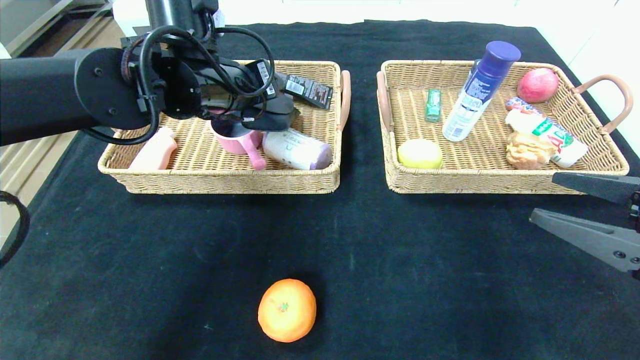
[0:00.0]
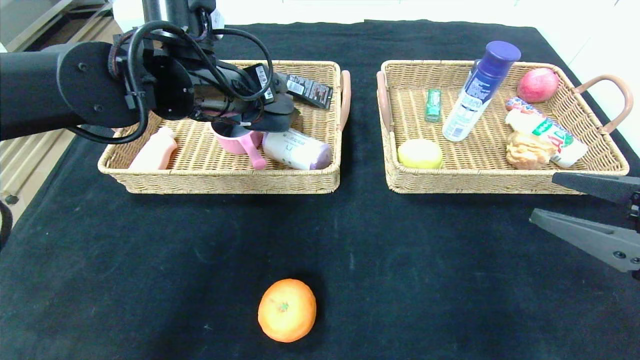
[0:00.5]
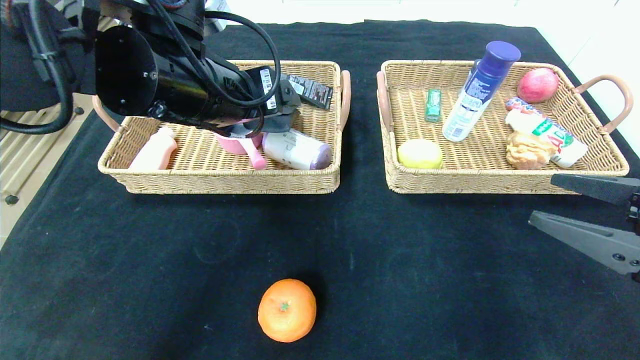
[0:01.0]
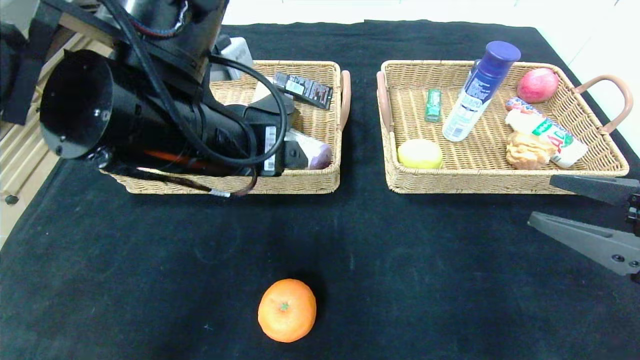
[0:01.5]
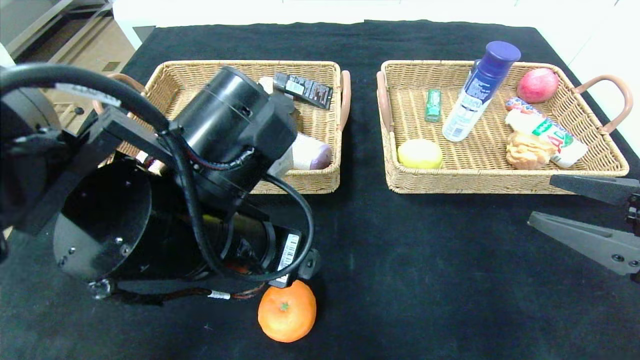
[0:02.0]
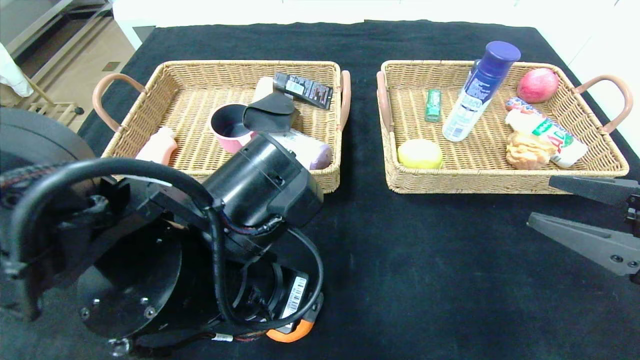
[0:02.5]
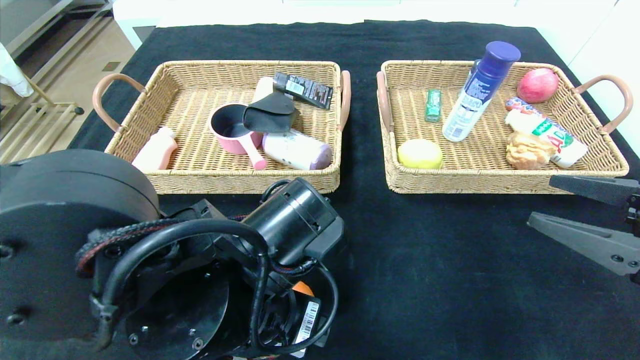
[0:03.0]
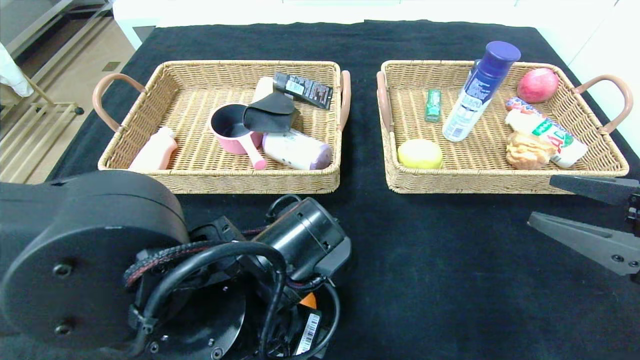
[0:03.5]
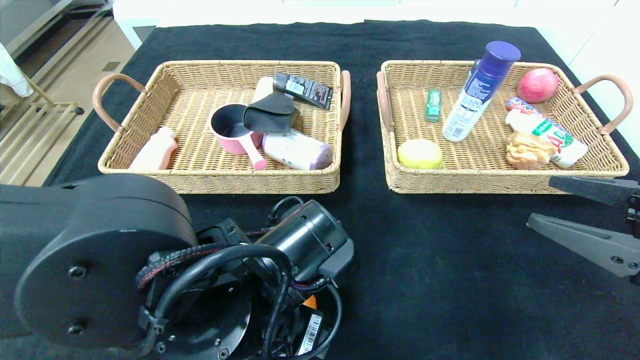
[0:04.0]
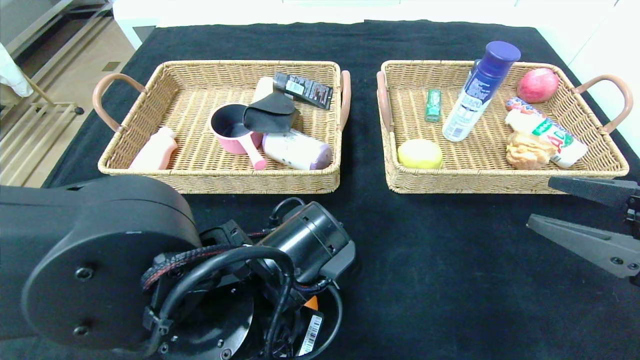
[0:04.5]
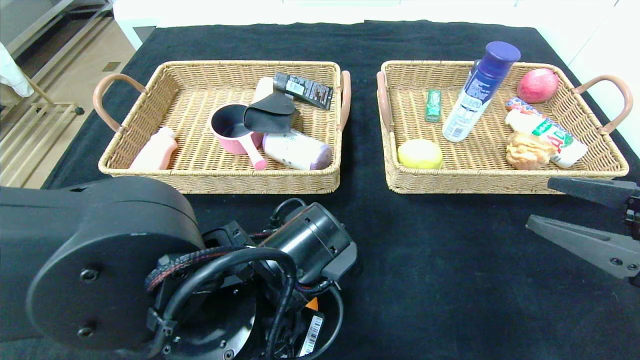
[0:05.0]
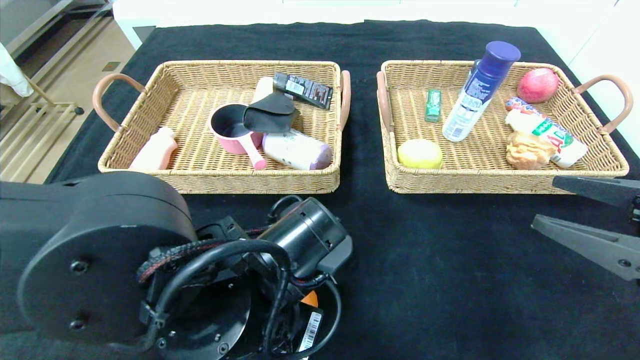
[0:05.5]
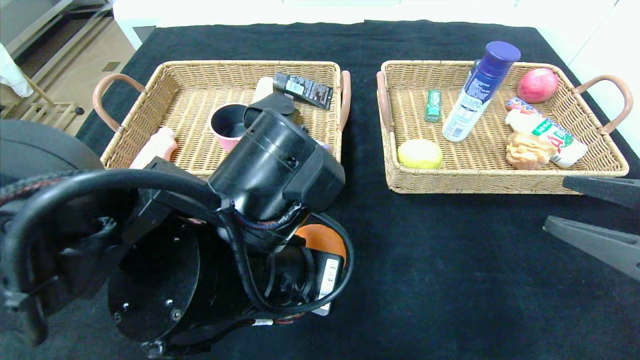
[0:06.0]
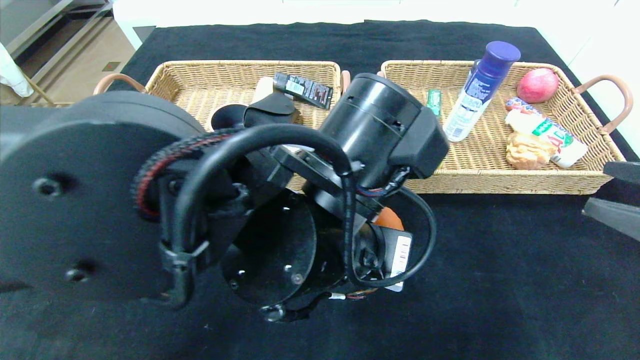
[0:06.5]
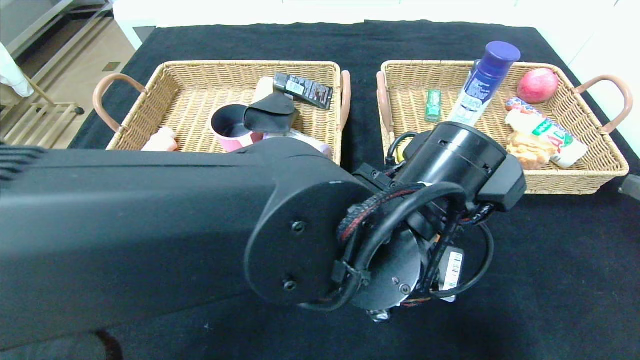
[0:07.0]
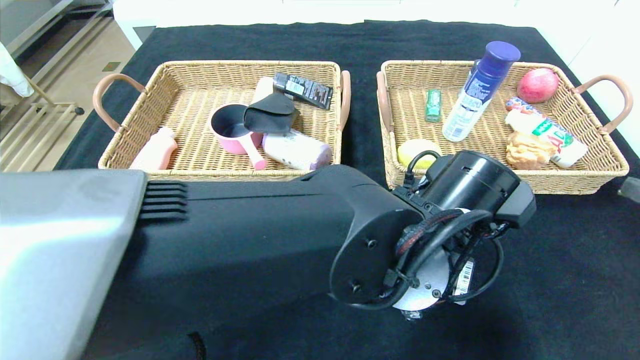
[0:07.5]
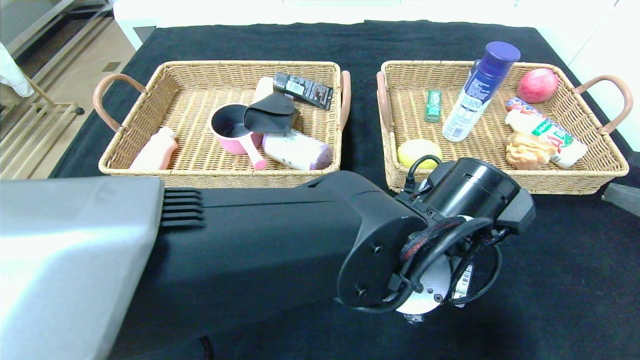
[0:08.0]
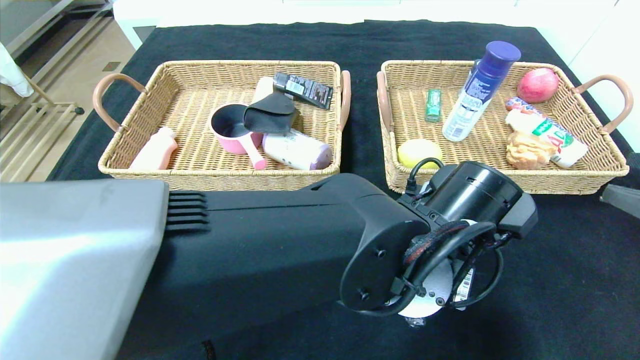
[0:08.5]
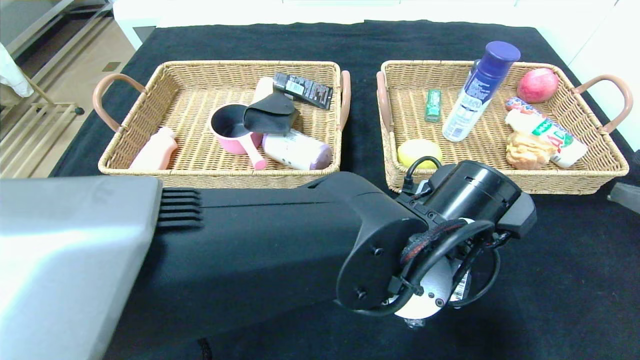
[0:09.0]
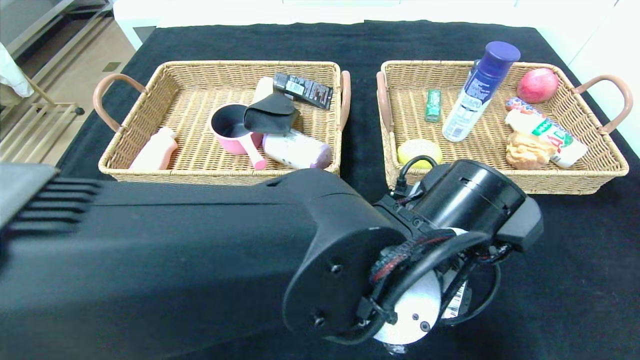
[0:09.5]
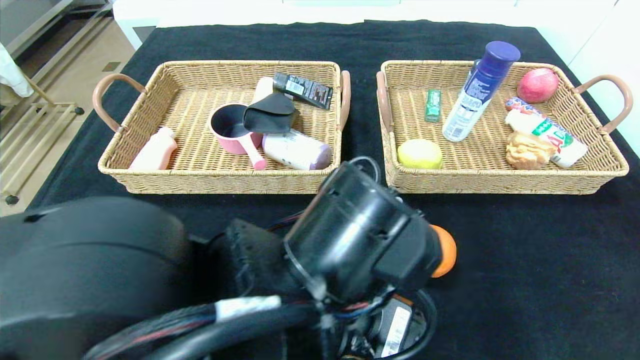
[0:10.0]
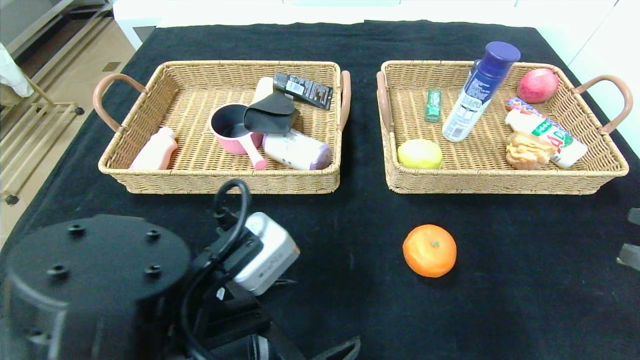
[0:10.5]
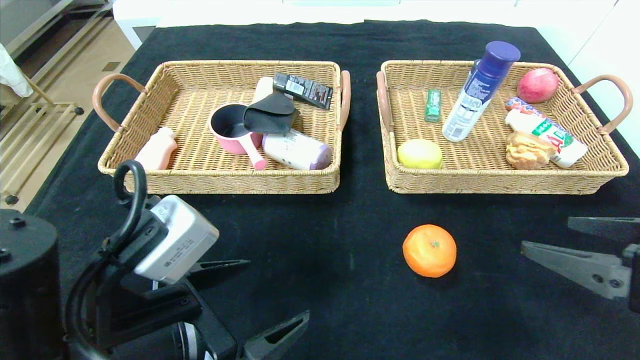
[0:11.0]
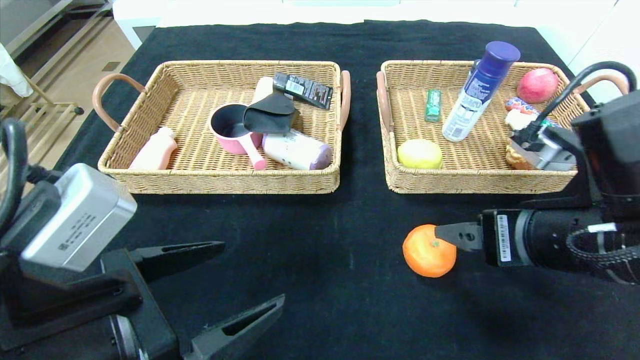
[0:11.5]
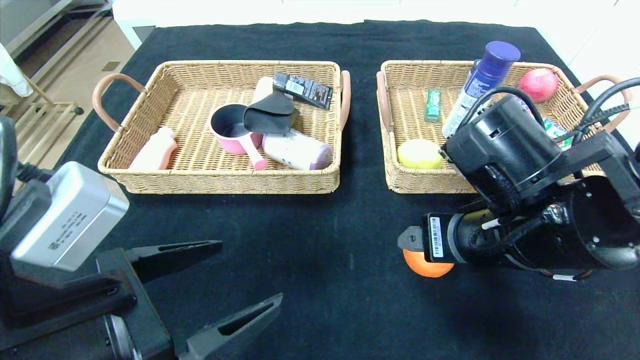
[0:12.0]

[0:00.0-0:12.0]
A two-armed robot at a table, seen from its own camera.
Step, 0:02.0 to 0:10.0: Place the orange in the center of the table.
0:00.0 to 0:02.0: The left gripper shifts some 15 cm backward.
0:02.0 to 0:04.0: The left gripper is displaced downward by about 5 cm.
0:04.0 to 0:06.0: The left gripper goes some 5 cm upward, and closes its fingers.
0:06.0 to 0:08.0: The left gripper moves to the right, some 15 cm.
0:08.0 to 0:10.0: The left gripper is displaced to the left and backward by about 10 cm, and opens.
0:10.0 to 0:12.0: The right gripper shifts approximately 25 cm to the left and forward; the left gripper travels to the left by about 15 cm.

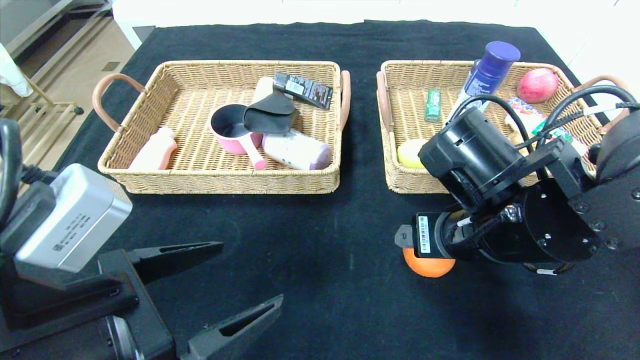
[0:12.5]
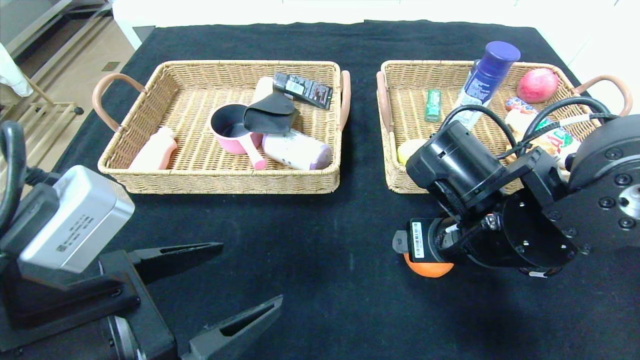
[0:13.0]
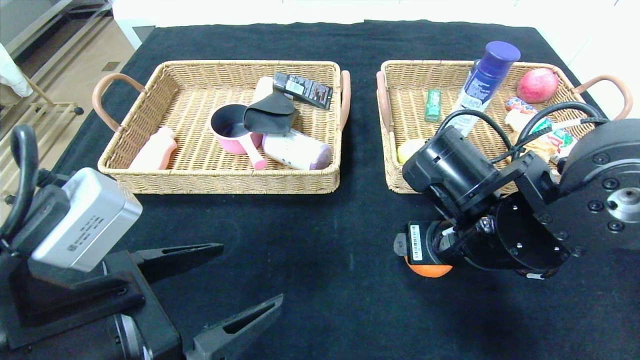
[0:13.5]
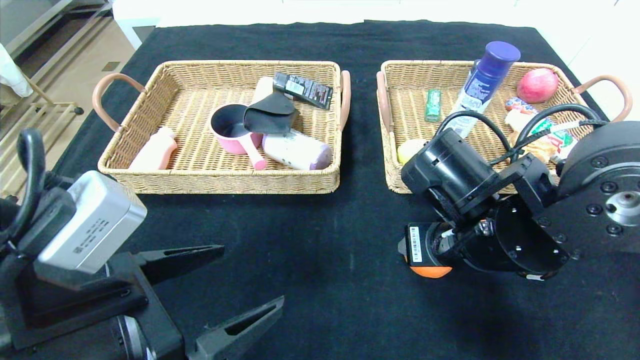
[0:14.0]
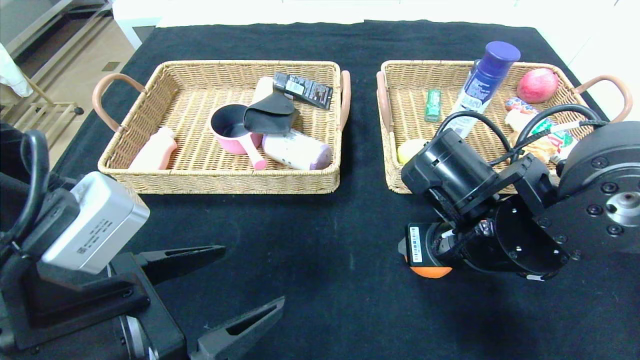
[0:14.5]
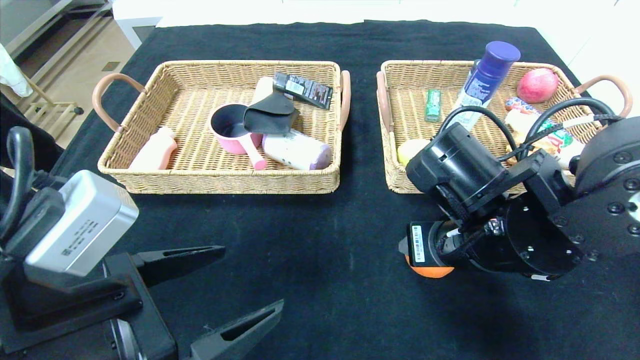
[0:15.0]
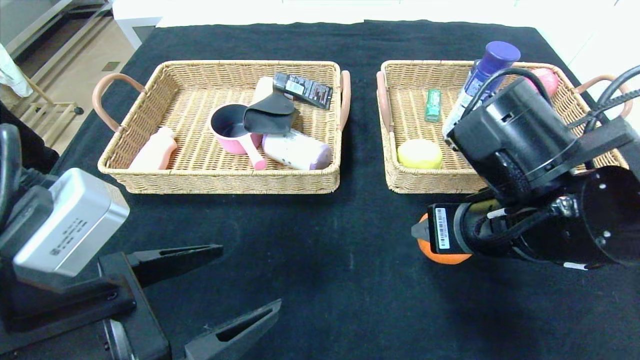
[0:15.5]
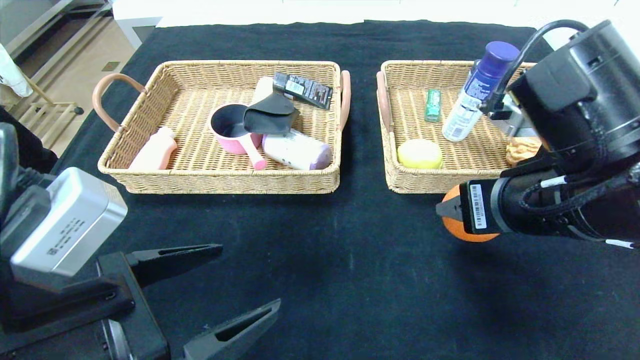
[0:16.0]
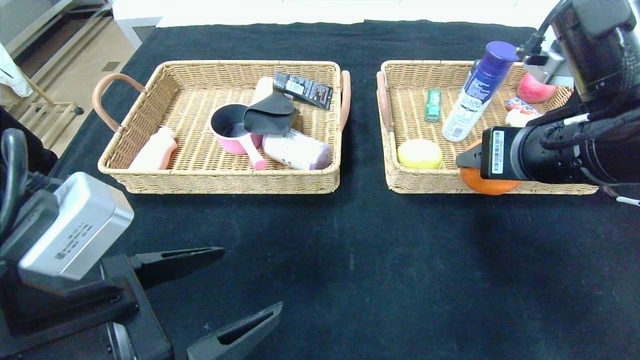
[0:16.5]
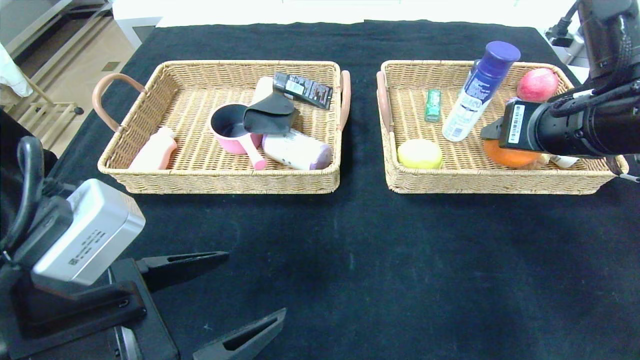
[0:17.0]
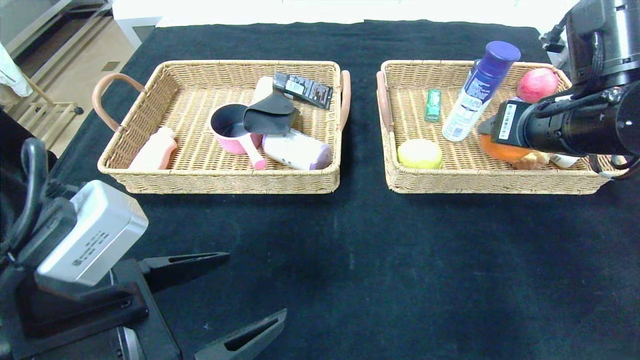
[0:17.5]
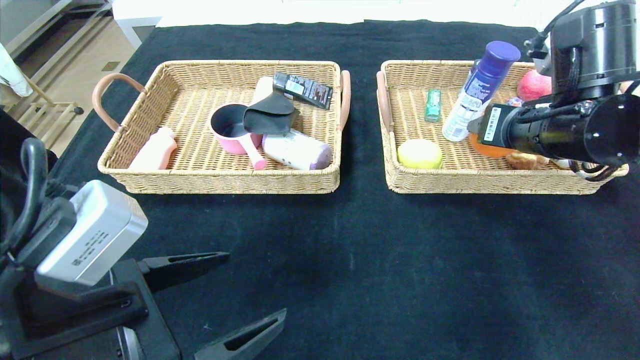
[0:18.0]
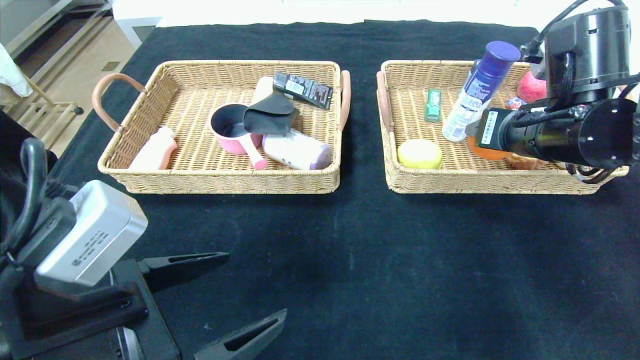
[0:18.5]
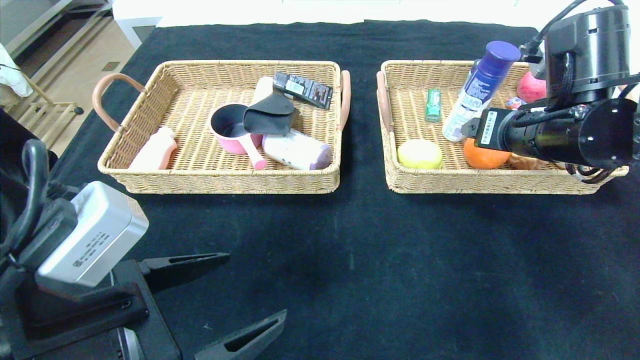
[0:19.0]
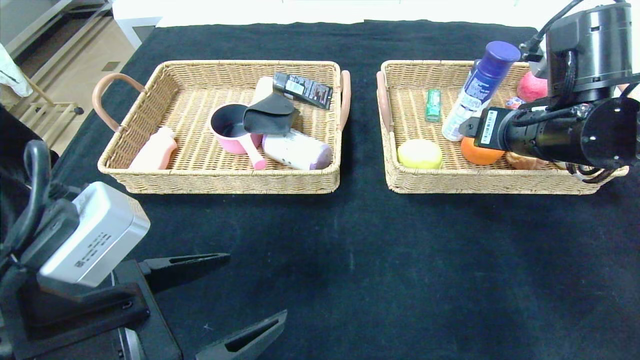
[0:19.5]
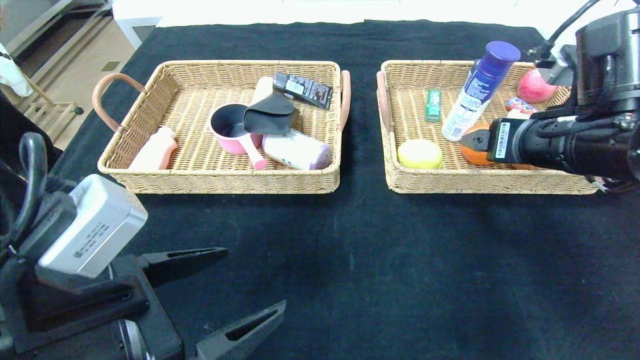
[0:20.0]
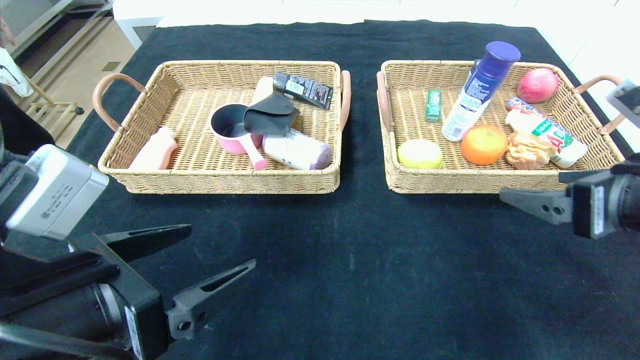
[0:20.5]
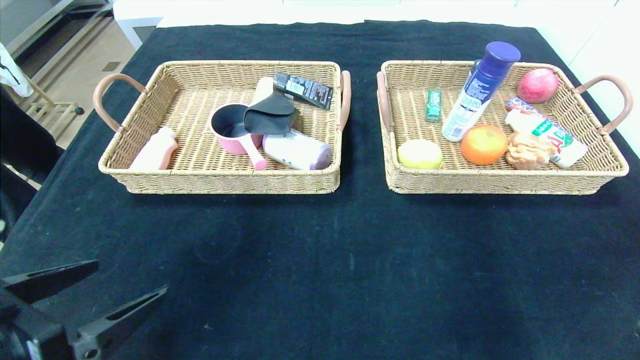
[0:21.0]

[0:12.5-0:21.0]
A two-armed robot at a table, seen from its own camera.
Step, 0:12.5 to 0:20.5: Grasp the orange and put it in the right basket.
0:12.5 to 0:14.5: The right gripper closes its fingers.
0:14.5 to 0:16.5: The right gripper moves upward and to the right, about 10 cm.
0:16.5 to 0:19.0: The right gripper shifts roughly 5 cm forward, and opens up.
0:19.0 to 0:21.0: The right gripper moves backward and to the right, roughly 30 cm, while the left gripper goes about 10 cm to the left.
